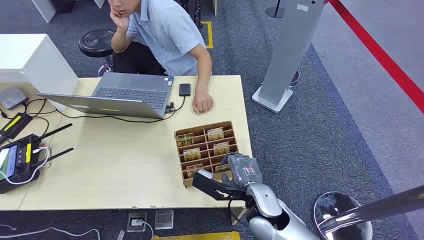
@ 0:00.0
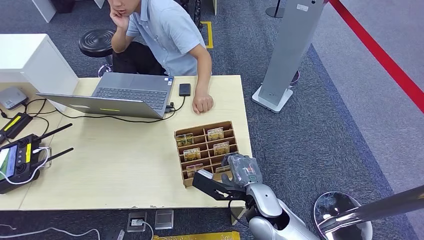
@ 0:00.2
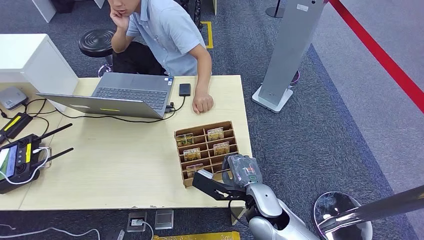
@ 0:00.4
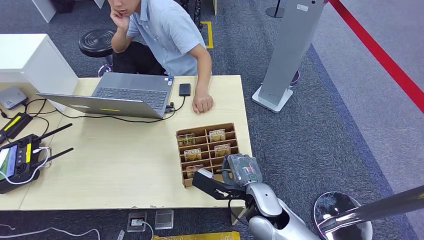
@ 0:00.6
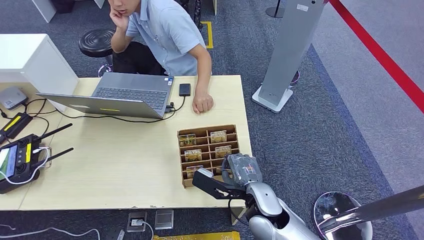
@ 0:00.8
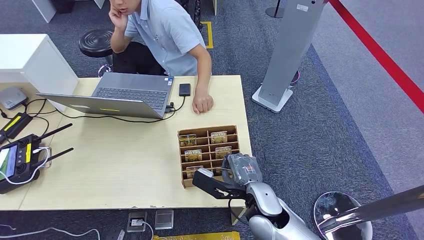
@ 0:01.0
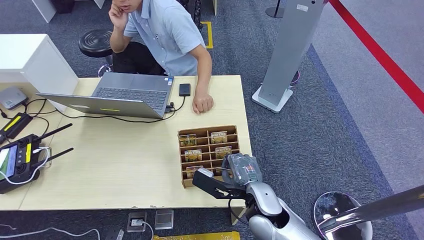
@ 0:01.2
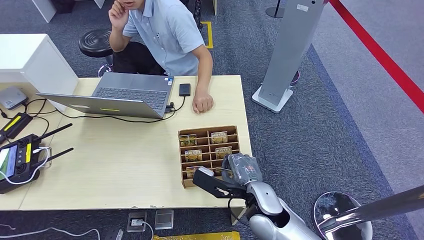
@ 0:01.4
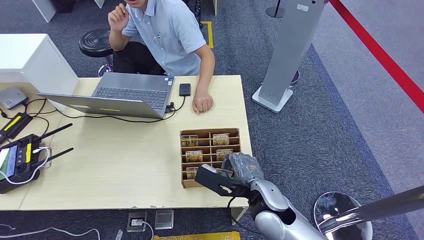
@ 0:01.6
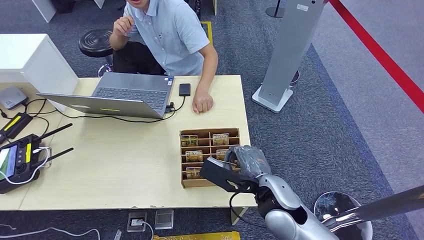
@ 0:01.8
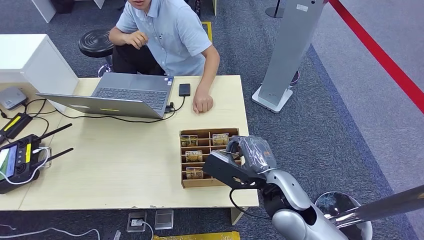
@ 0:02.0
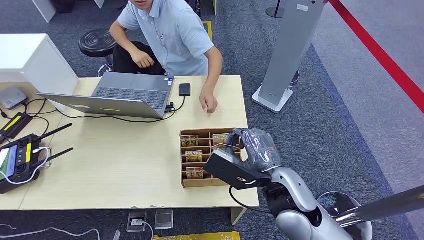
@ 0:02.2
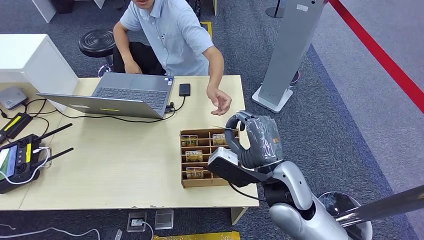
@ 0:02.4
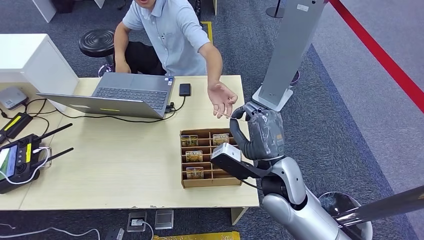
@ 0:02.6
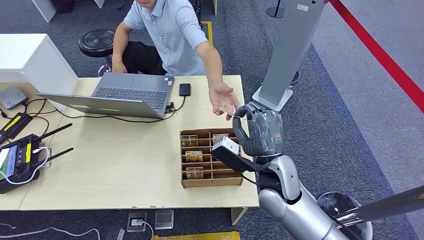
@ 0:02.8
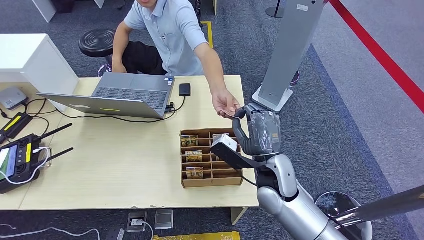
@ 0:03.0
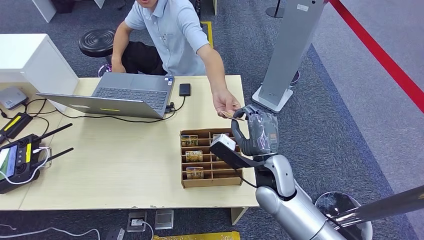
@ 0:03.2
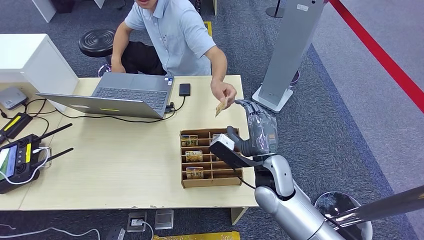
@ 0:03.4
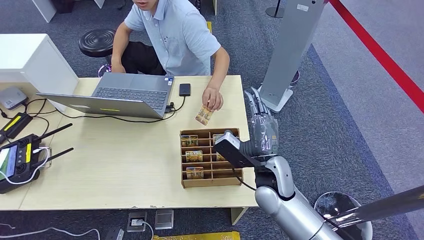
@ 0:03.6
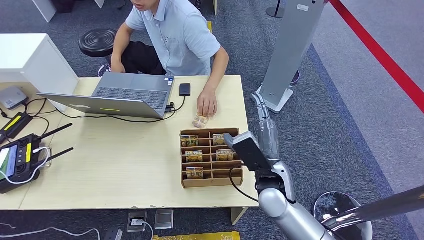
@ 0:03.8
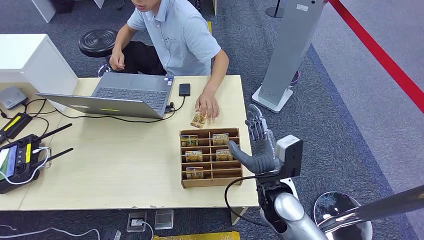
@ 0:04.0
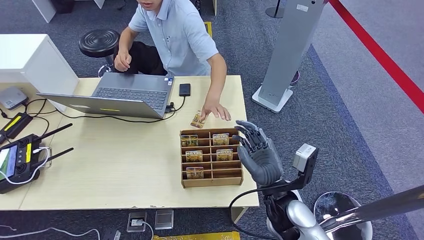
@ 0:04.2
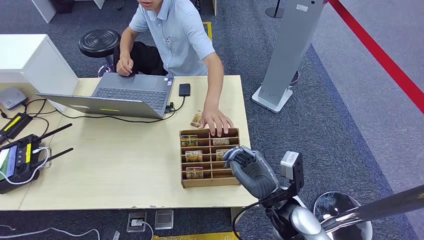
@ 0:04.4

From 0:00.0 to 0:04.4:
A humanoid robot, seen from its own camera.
Task of the whole recording: Pick up the card and hand it over to the target person.
Step, from 0:00.0 to 0:01.8: Pick up the key card from the card box.
Step, from 0:02.6 to 0:04.4: Hand the key card to the target.
From 0:01.4 to 0:03.0: The right hand travels forward by some 5 cm, and reaches roughly 10 cm upward, then returns.
From 0:03.0 to 0:04.4: The right hand shifts some 10 cm backward and downward.

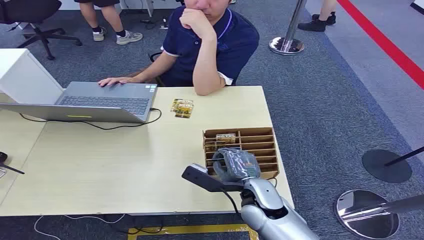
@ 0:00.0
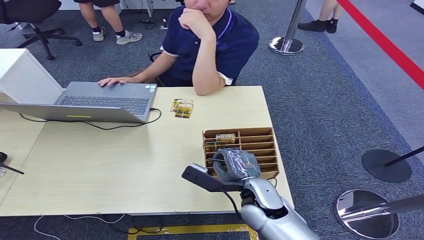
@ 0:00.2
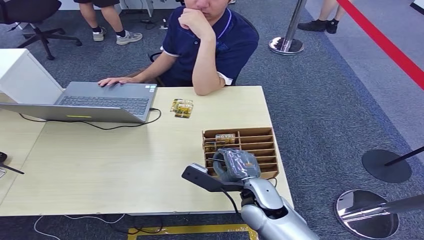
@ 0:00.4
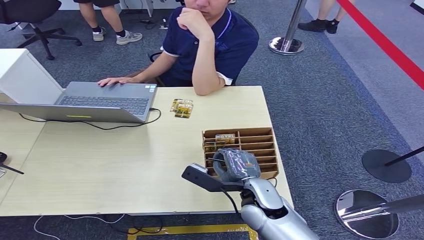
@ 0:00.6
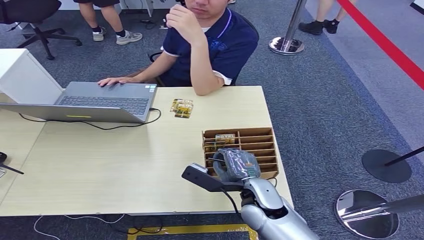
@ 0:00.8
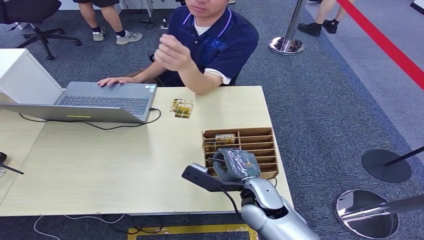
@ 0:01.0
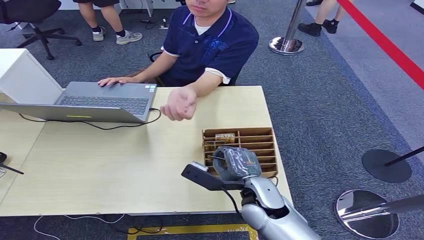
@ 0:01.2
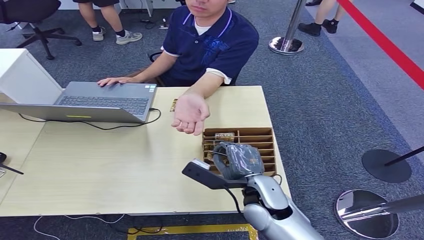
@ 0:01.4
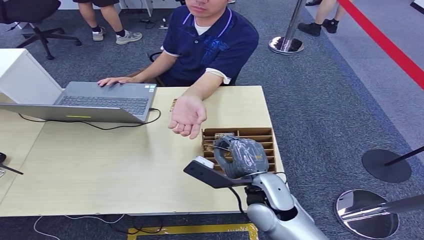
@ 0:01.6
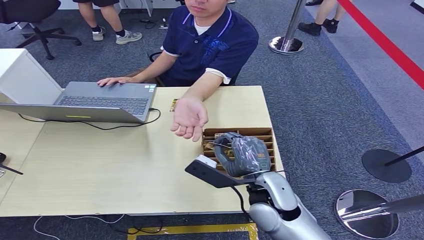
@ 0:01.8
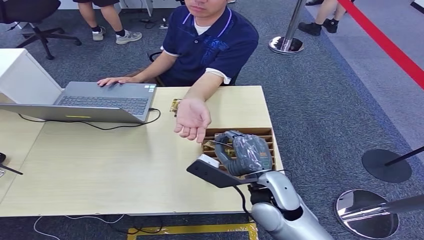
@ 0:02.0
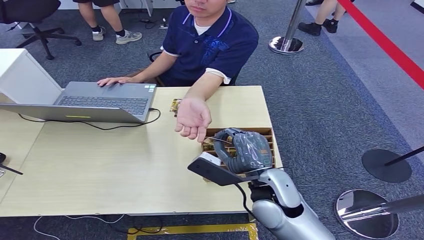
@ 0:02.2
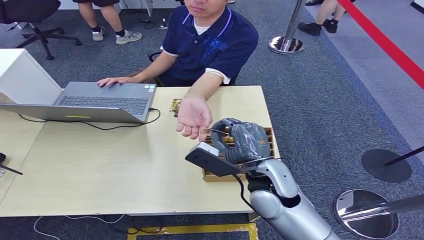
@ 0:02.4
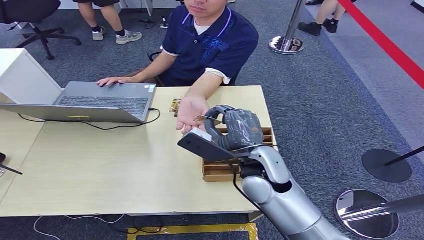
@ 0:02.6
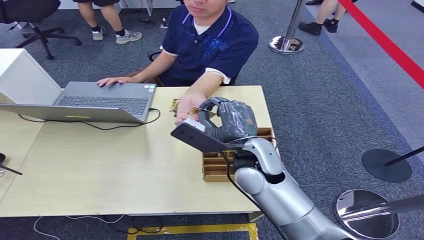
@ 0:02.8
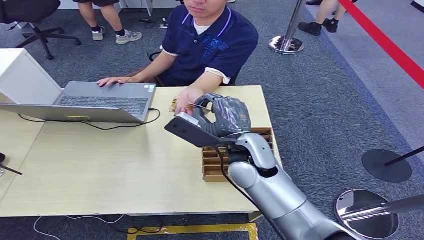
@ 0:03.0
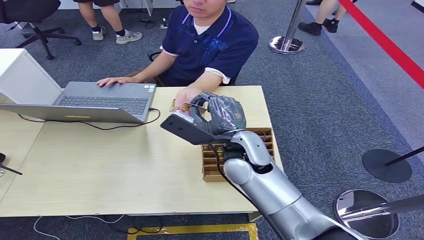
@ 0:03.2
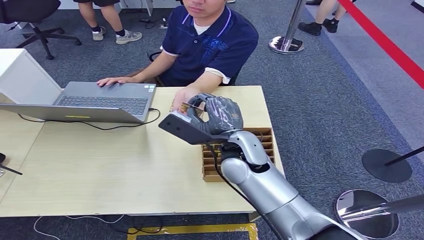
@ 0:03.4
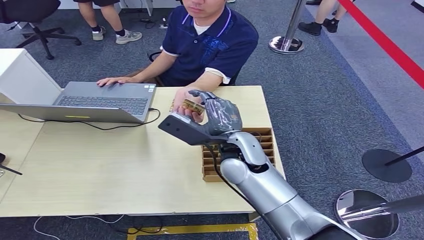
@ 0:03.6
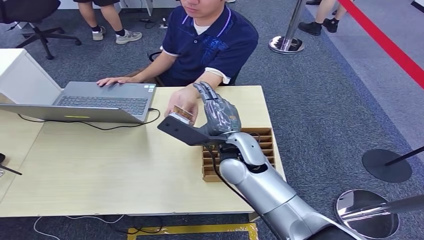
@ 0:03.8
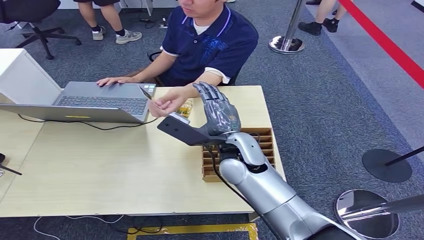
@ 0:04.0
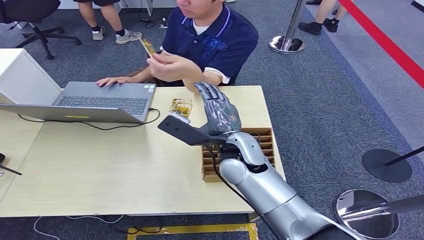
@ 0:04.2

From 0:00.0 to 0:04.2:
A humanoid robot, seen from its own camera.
Task of the whole recording: Pick up the card and hand it over to the target person.
Step, from 0:00.0 to 0:02.2: Pick up the key card from the card box.
Step, from 0:02.6 to 0:04.2: Hand the key card to the target.
From 0:01.4 to 0:02.8: The right hand is displaced forward and upward by about 10 cm.
From 0:02.8 to 0:04.2: The hands move only a little.
